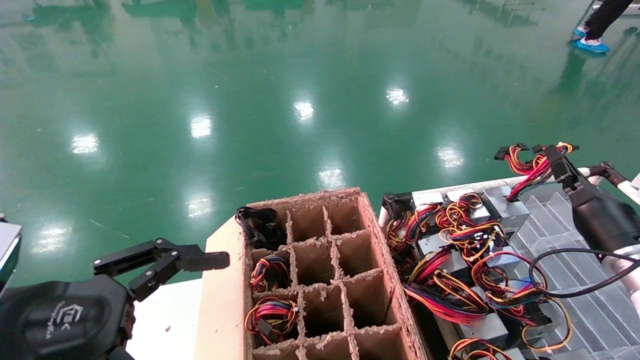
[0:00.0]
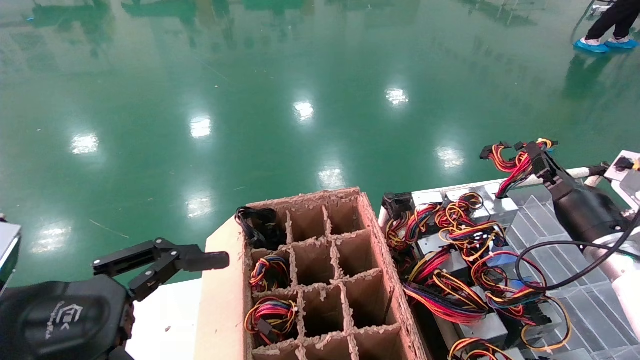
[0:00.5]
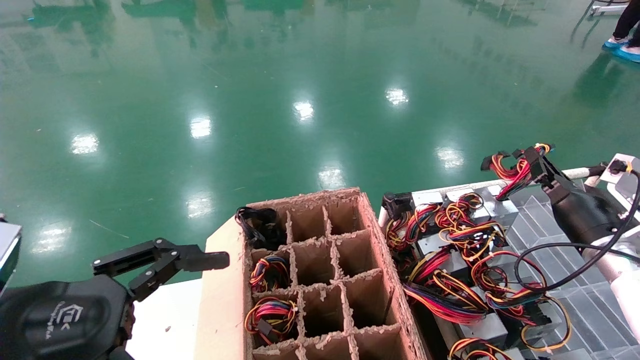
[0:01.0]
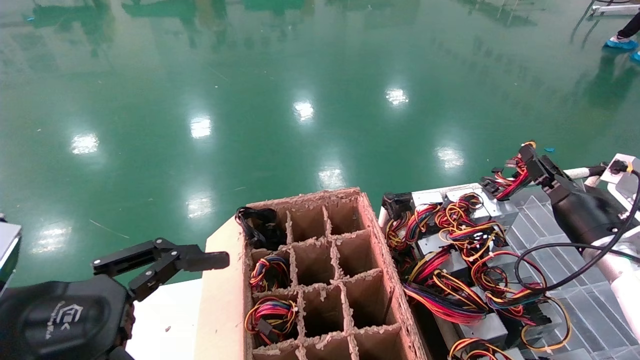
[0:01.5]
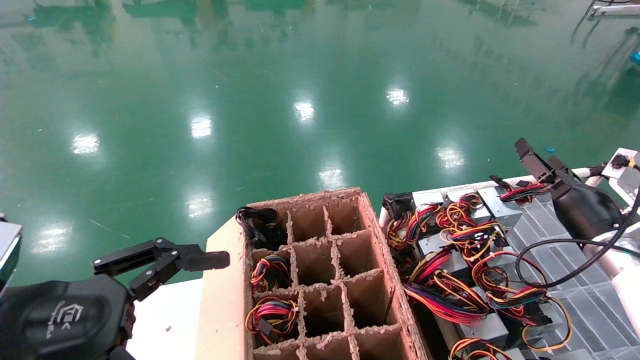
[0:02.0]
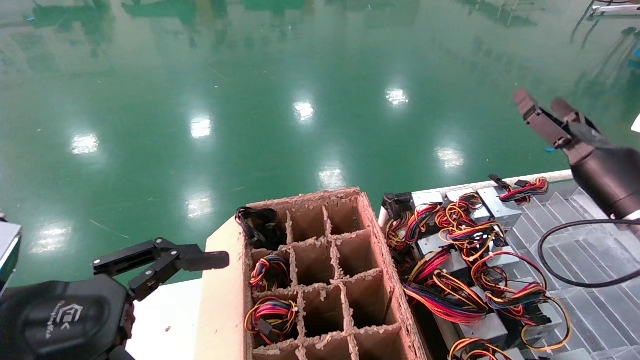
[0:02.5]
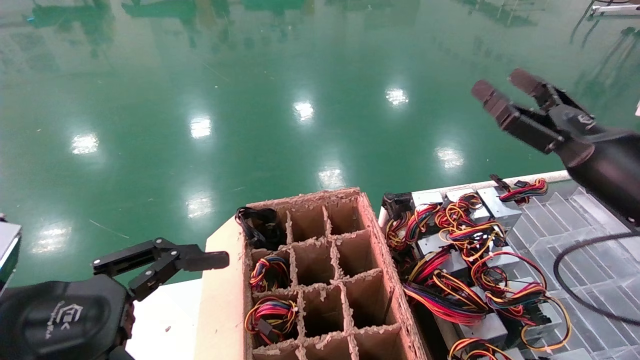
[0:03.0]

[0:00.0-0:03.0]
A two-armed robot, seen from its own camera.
0:00.0 to 0:01.5: The grippers move only a little.
0:01.5 to 0:03.0: The right gripper heads backward, upward and to the left, covering some 15 cm, and opens.
